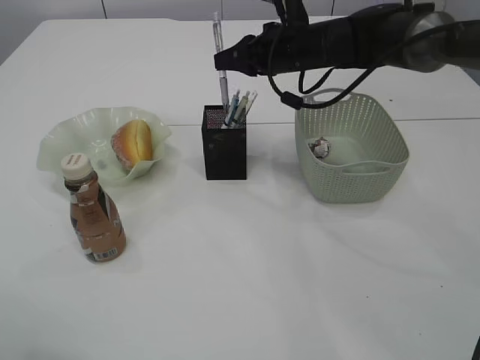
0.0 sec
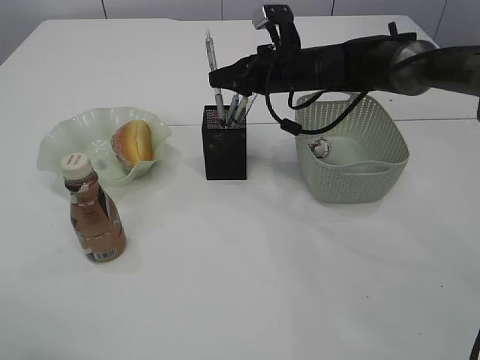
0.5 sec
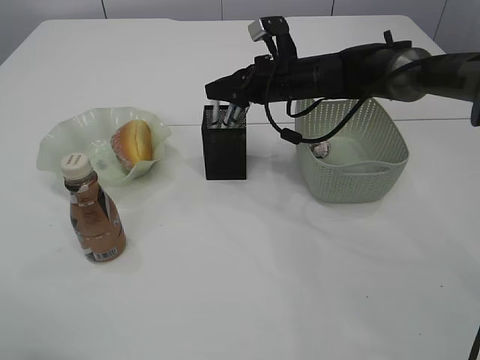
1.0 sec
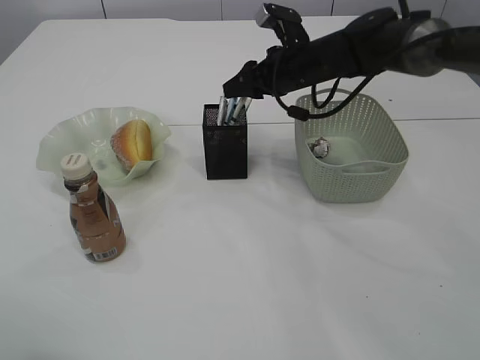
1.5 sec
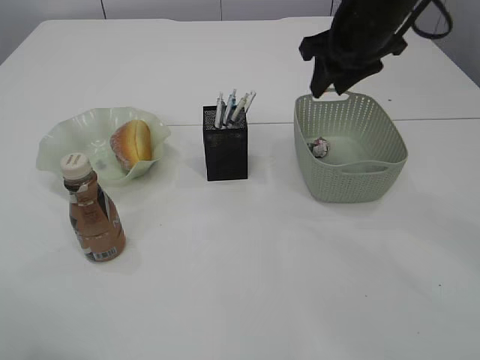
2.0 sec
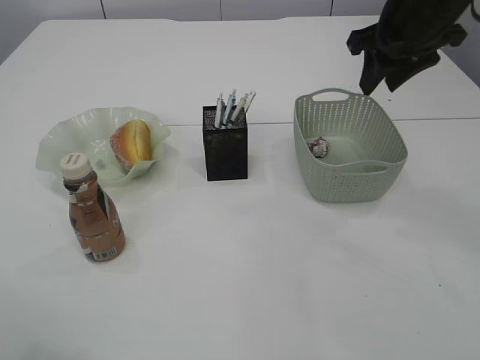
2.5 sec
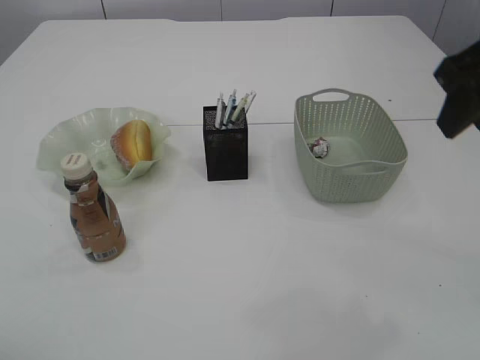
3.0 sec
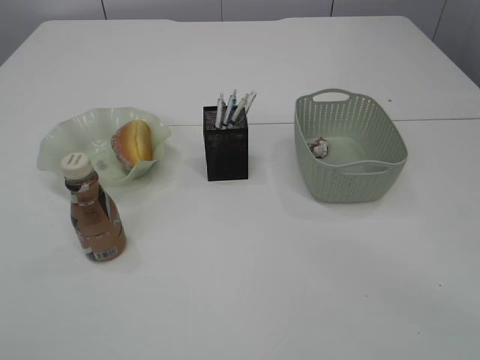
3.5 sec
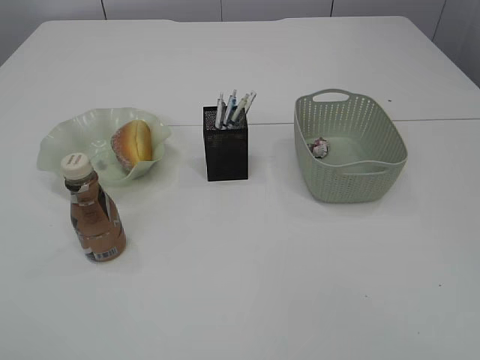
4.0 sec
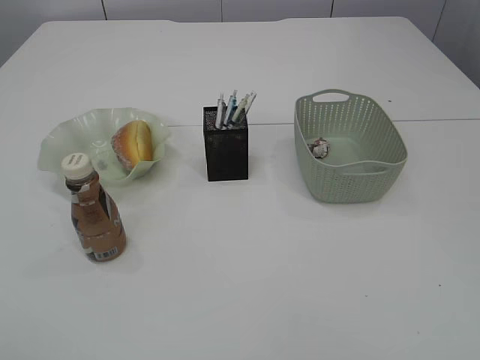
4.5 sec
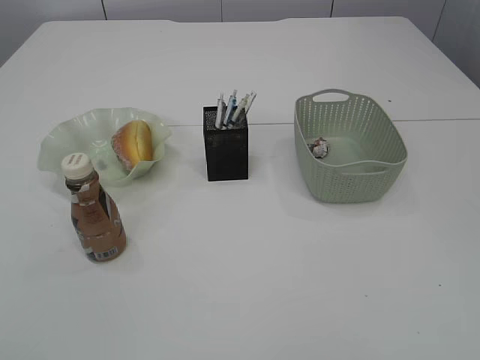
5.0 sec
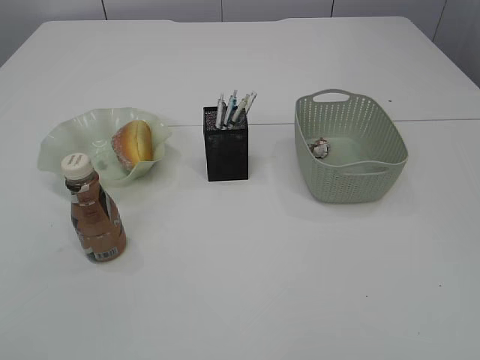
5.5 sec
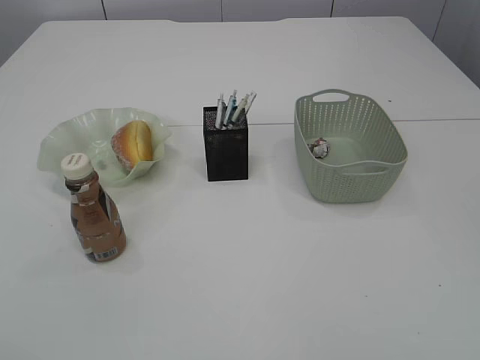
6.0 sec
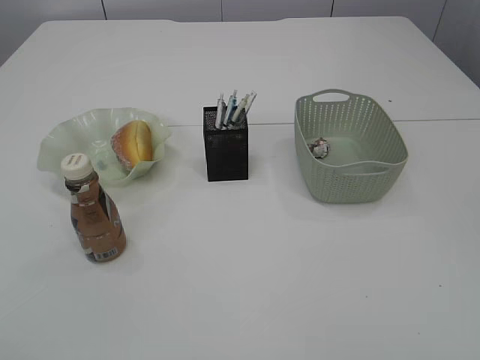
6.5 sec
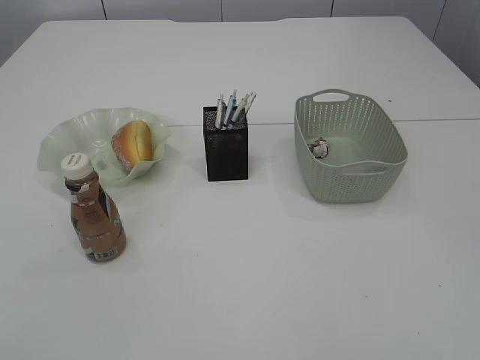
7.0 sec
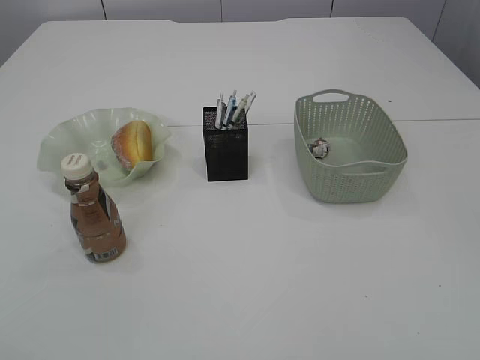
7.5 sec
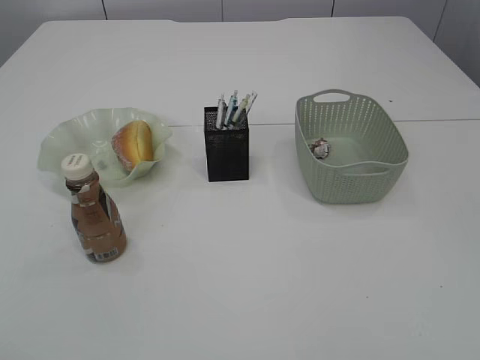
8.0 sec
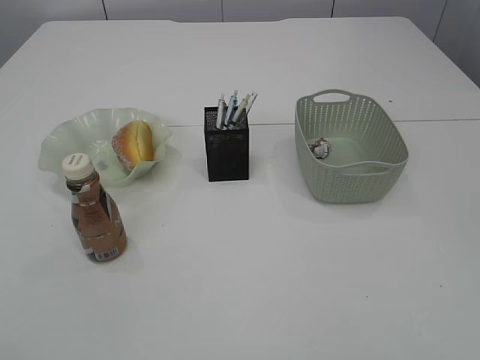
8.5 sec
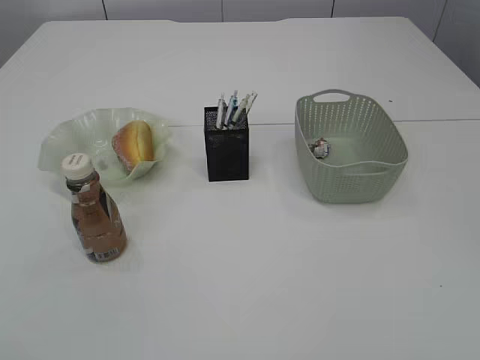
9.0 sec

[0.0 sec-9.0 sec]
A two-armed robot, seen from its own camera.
0.0 sec to 2.0 sec: The right gripper shifts about 10 cm upward, to the right and backward, and opens its fingers.
2.0 sec to 4.5 sec: The left gripper moves backward, approximately 20 cm; the right gripper shifts roughly 50 cm backward.

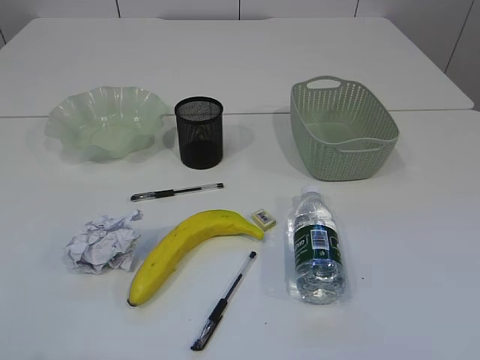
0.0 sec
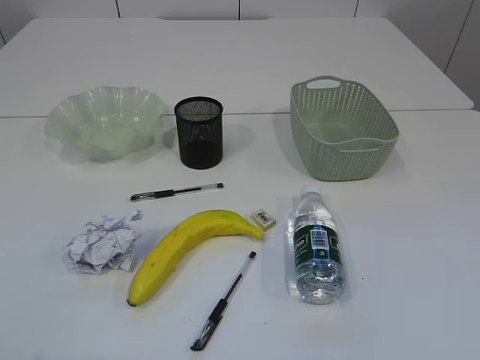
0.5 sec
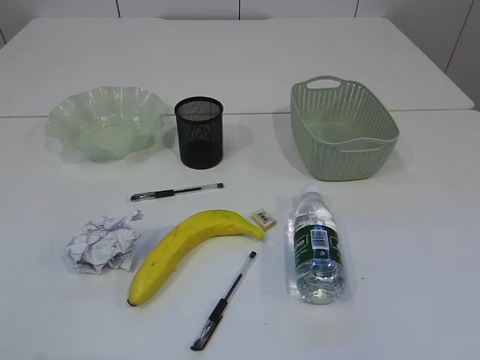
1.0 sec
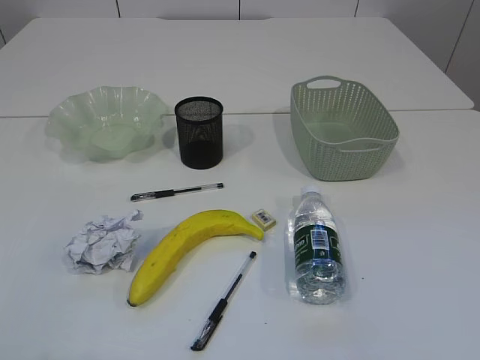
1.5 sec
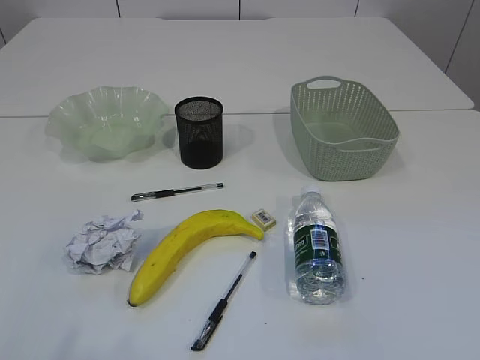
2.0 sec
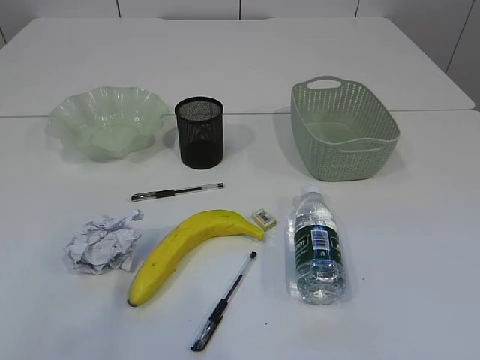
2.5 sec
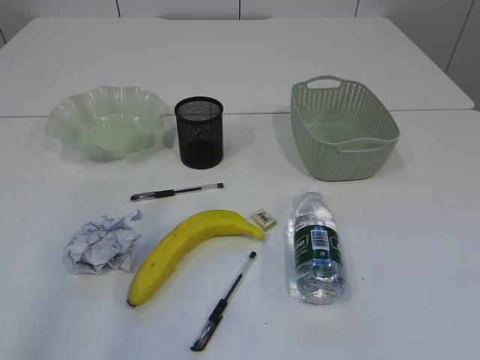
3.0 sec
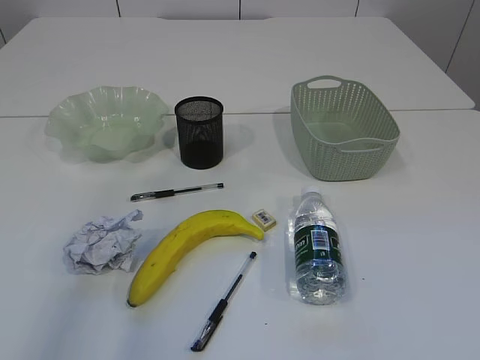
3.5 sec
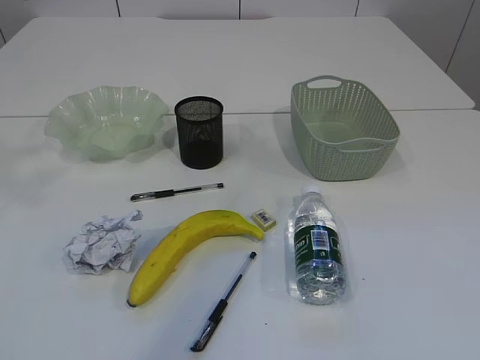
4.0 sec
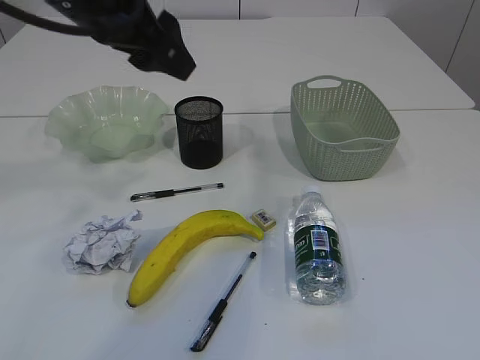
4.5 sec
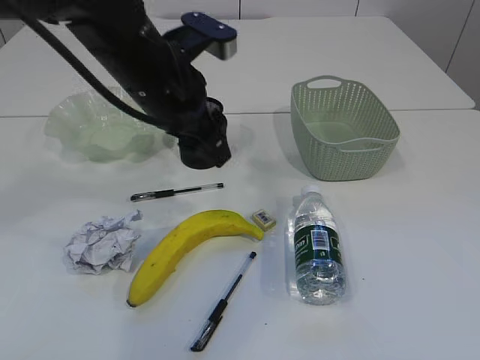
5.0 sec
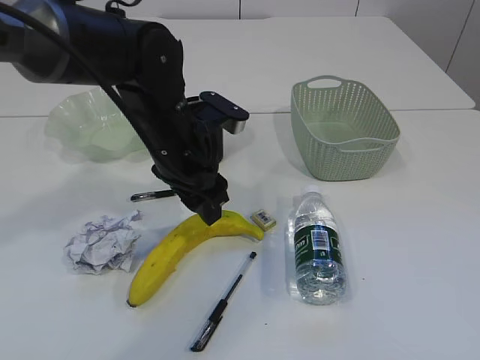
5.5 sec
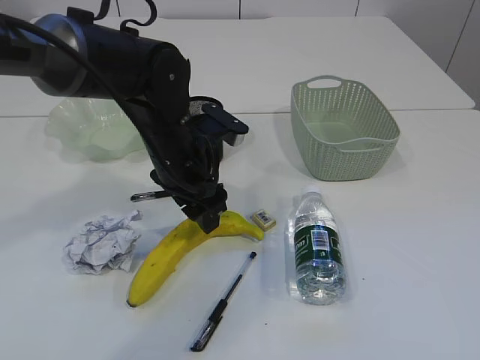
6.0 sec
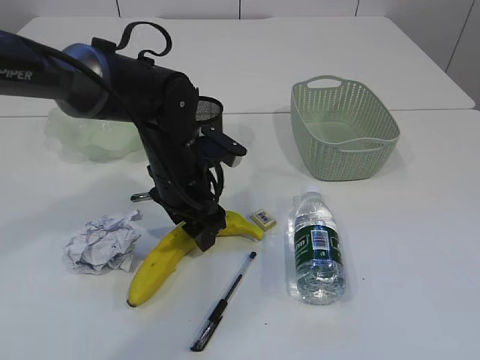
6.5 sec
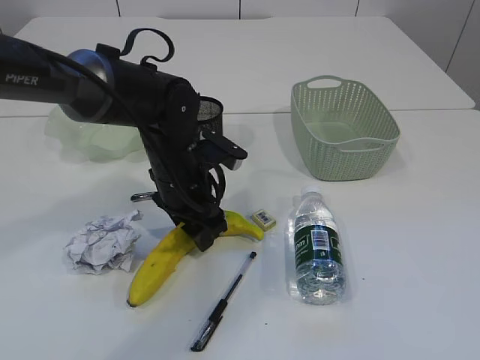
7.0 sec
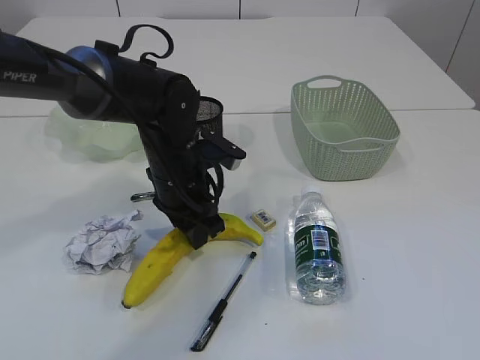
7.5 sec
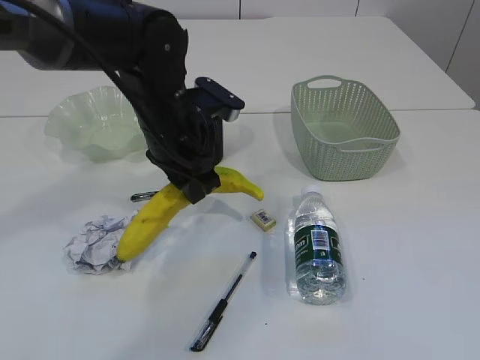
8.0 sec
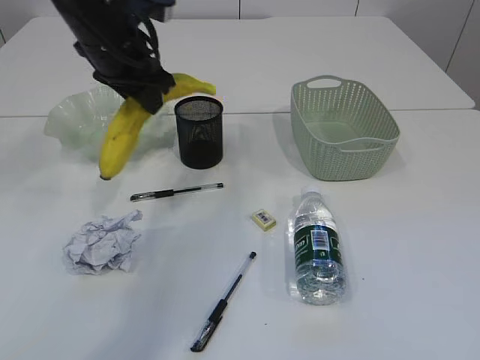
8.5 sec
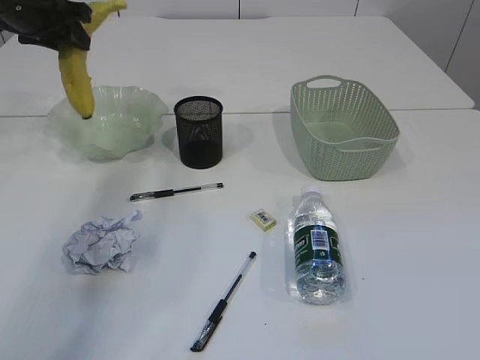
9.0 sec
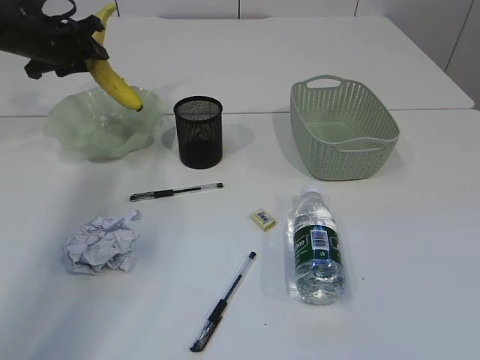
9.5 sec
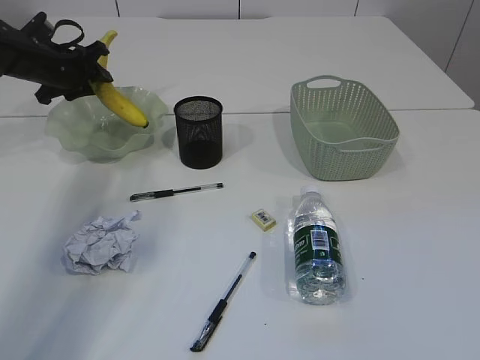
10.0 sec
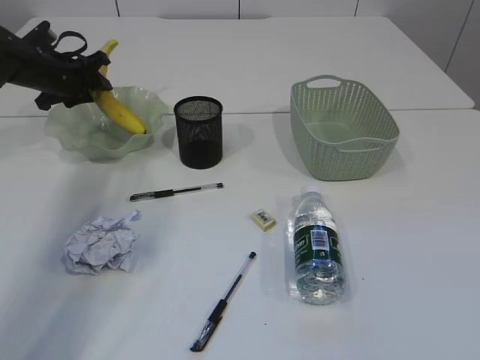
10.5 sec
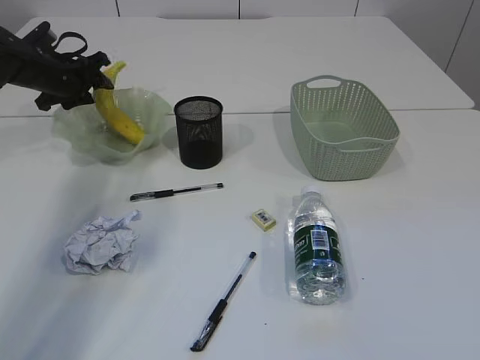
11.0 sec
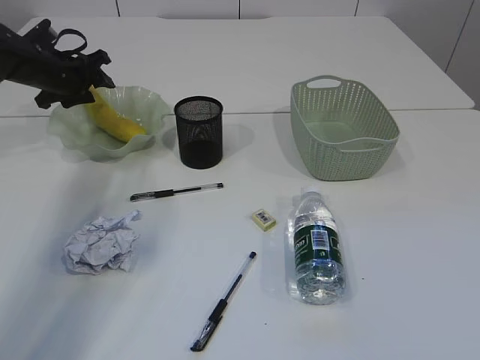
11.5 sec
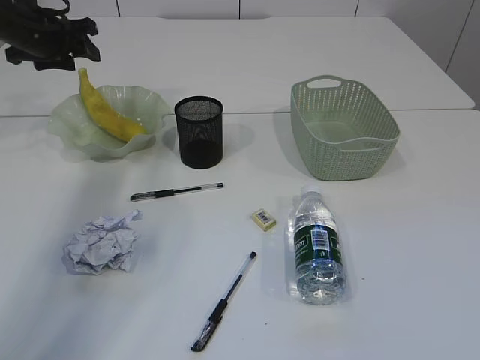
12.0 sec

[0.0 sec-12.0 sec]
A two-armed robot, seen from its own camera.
2.0 sec to 4.0 sec: The left gripper goes roughly 30 cm forward and upward.
4.0 sec to 6.0 sec: The left gripper heads downward and to the right, covering about 30 cm.
6.0 sec to 8.0 sec: The left gripper closes.
8.0 sec to 10.0 sec: The left gripper travels to the left and forward by approximately 30 cm.
10.0 sec to 12.0 sec: The left gripper heads upward, covering roughly 5 cm.

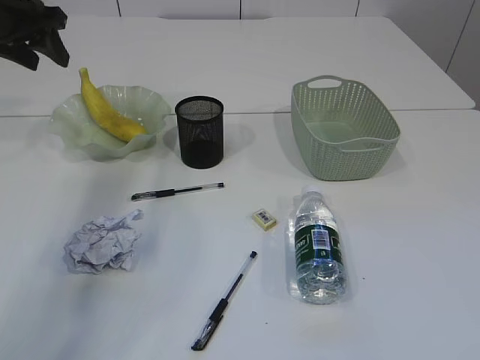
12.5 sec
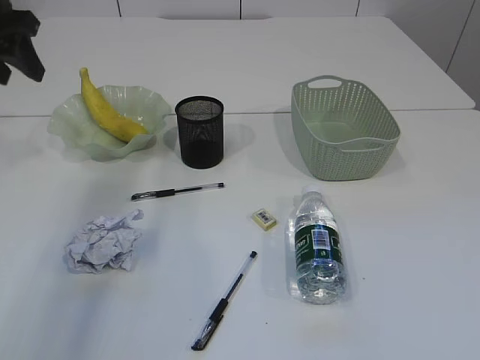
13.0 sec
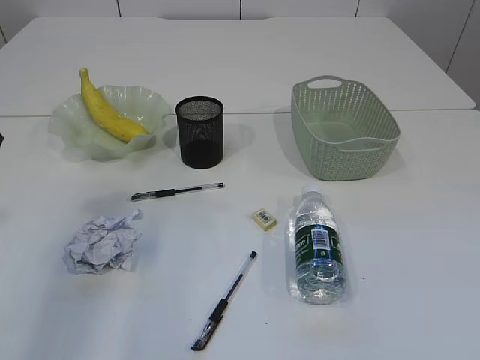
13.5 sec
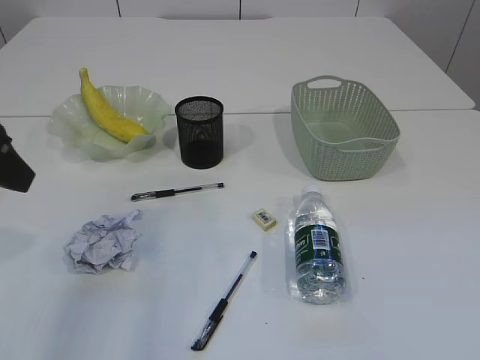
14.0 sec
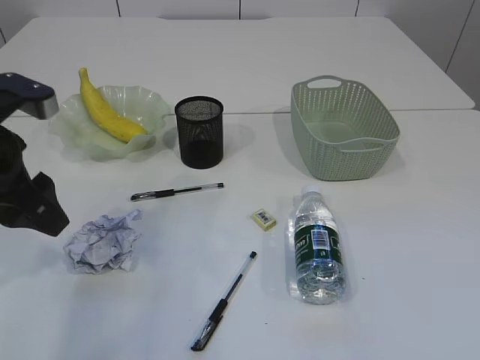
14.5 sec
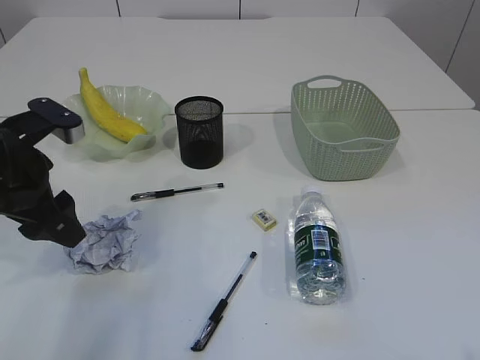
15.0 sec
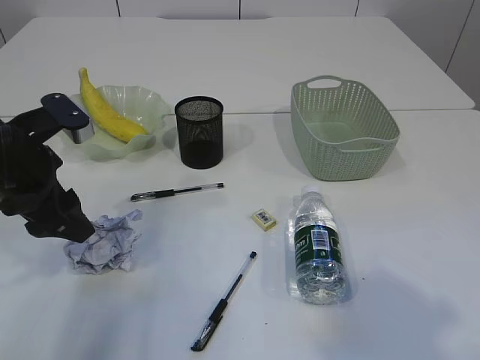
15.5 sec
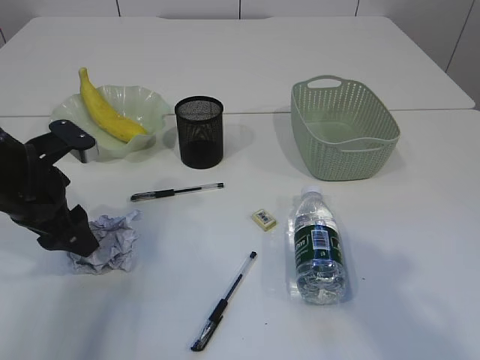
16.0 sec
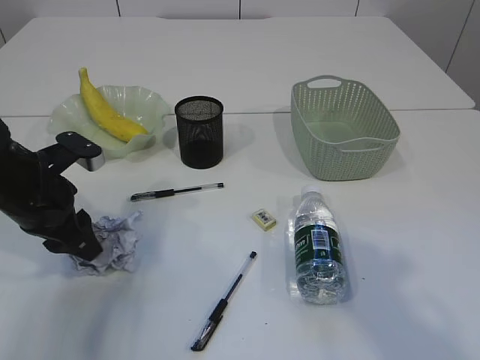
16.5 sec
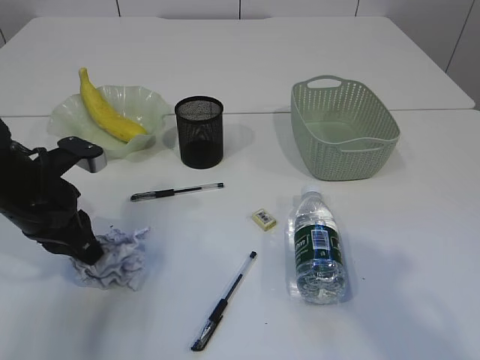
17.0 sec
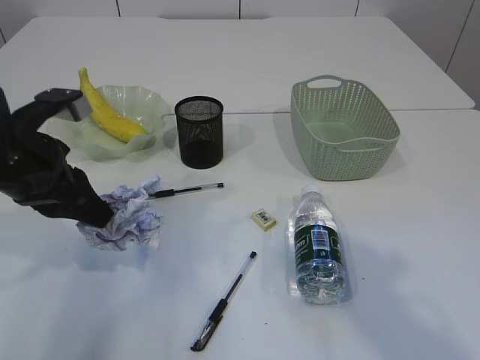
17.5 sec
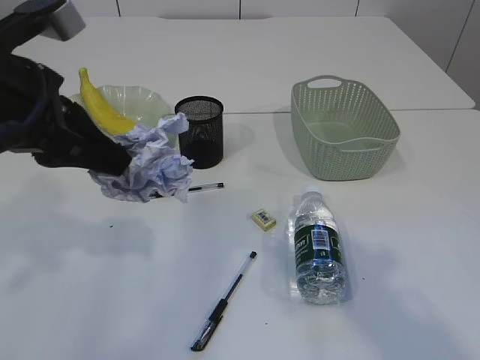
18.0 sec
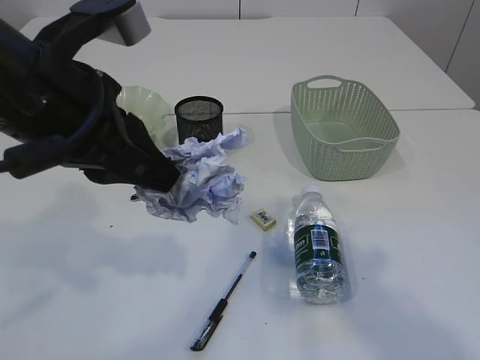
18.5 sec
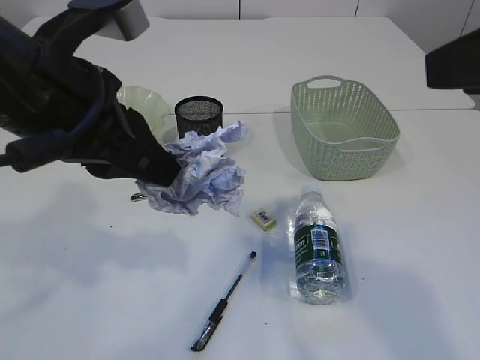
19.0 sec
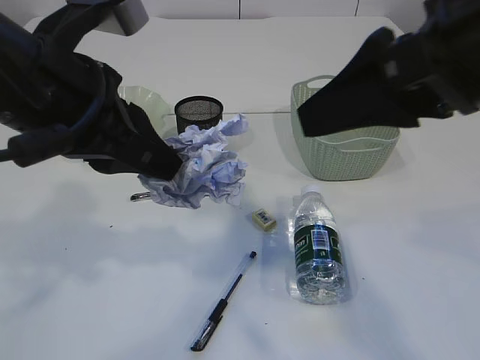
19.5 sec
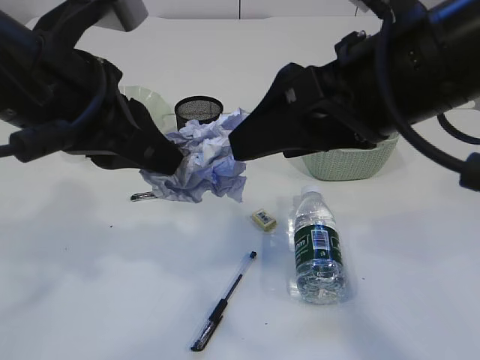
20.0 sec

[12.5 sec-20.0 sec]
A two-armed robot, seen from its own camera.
Step, 12.5 sec to 17.5 sec: Pick up the waste paper.
12.5 sec to 14.5 sec: The left gripper moves backward, about 20 cm.
14.5 sec to 16.5 sec: The right gripper heads forward and upward, covering about 20 cm, while the left gripper is displaced downward by roughly 10 cm.
16.5 sec to 18.0 sec: The left gripper goes some 15 cm upward, and closes up.
18.0 sec to 20.0 sec: The right gripper heads to the left and forward, covering approximately 15 cm, while the left gripper goes about 5 cm to the right.
